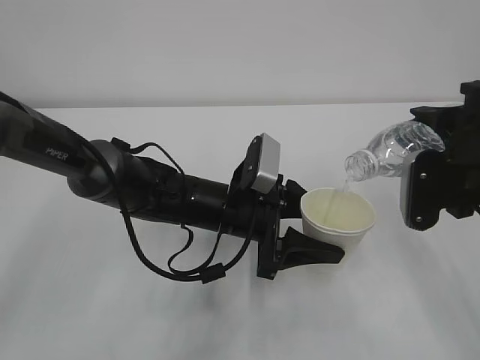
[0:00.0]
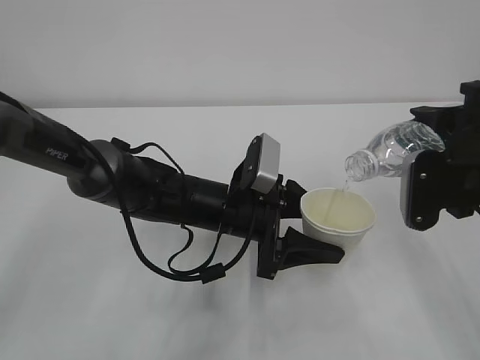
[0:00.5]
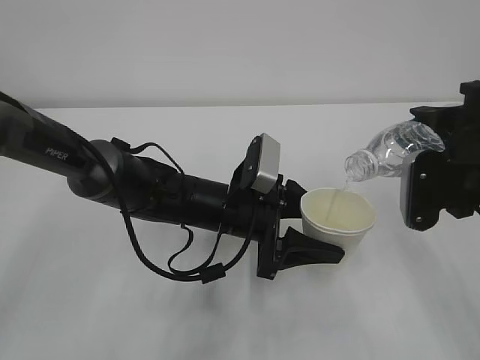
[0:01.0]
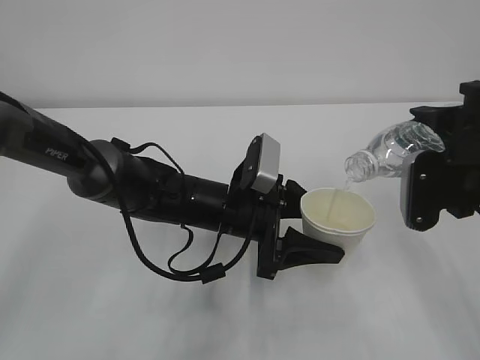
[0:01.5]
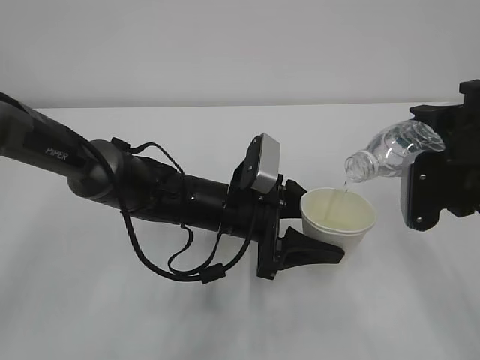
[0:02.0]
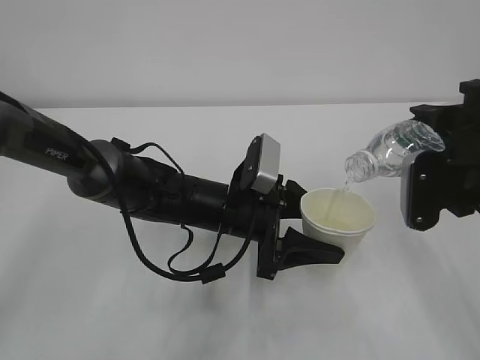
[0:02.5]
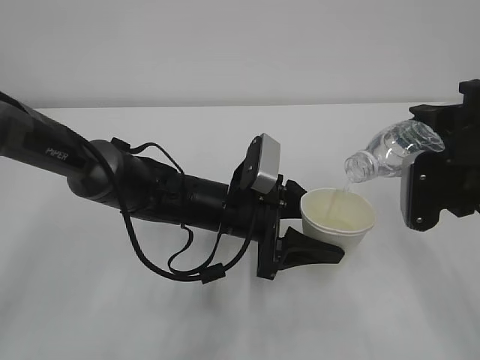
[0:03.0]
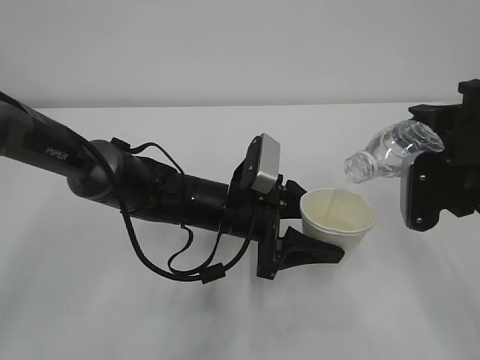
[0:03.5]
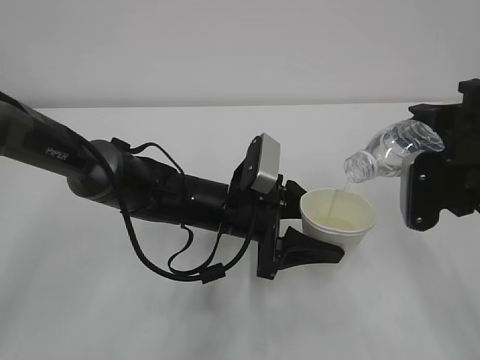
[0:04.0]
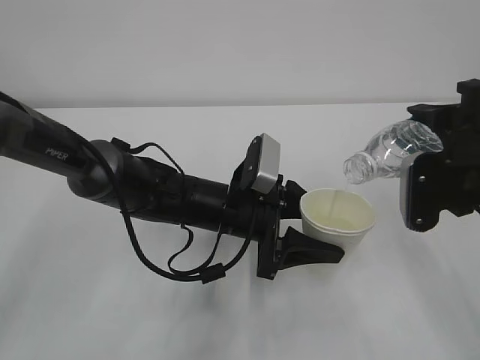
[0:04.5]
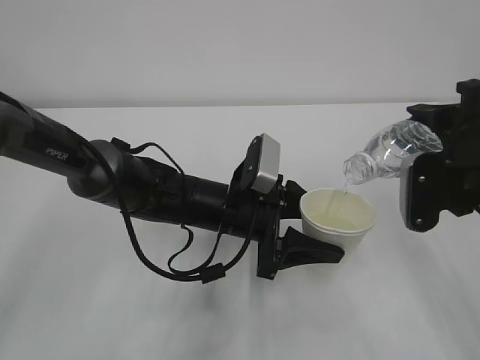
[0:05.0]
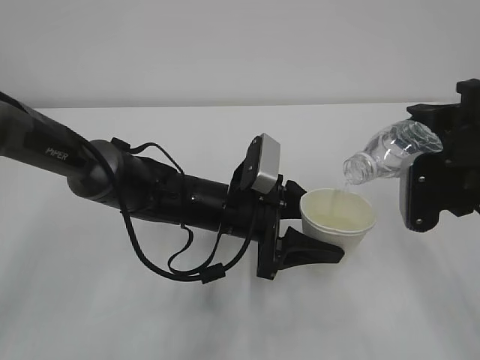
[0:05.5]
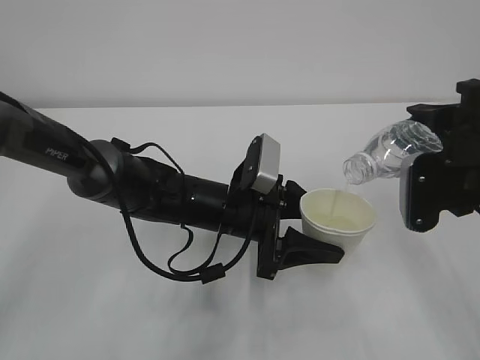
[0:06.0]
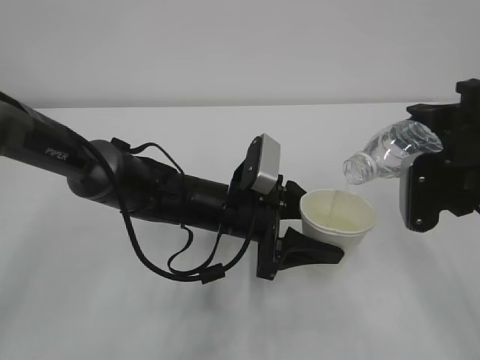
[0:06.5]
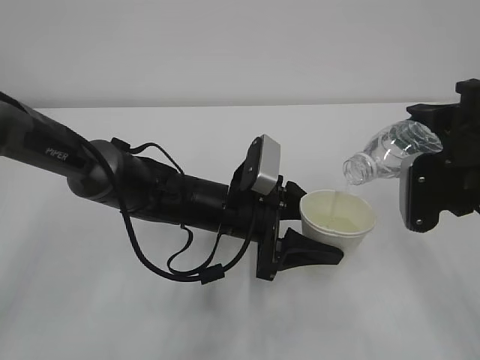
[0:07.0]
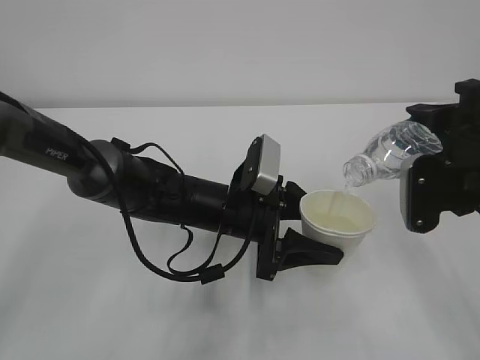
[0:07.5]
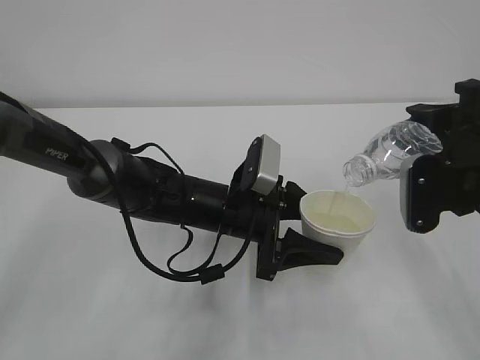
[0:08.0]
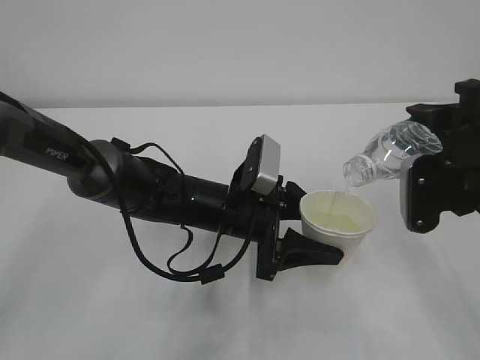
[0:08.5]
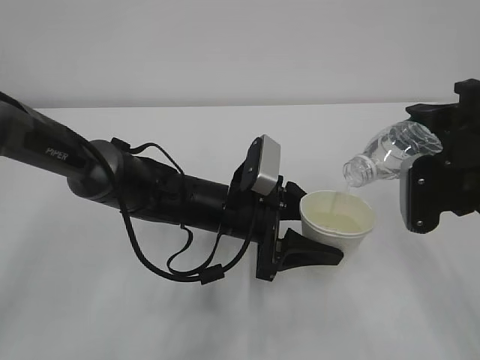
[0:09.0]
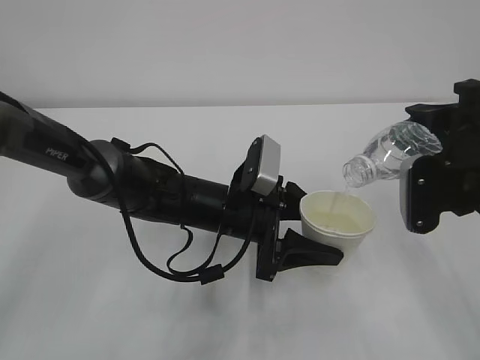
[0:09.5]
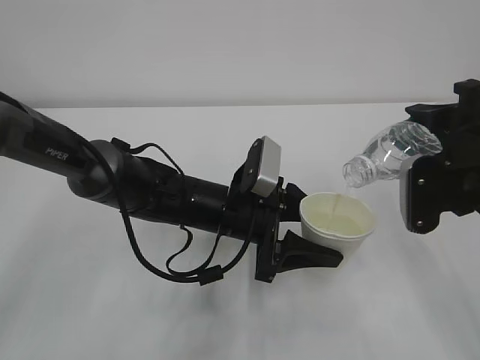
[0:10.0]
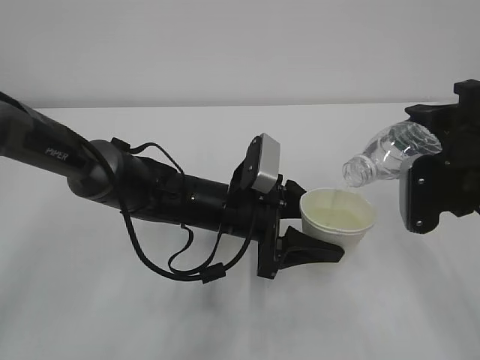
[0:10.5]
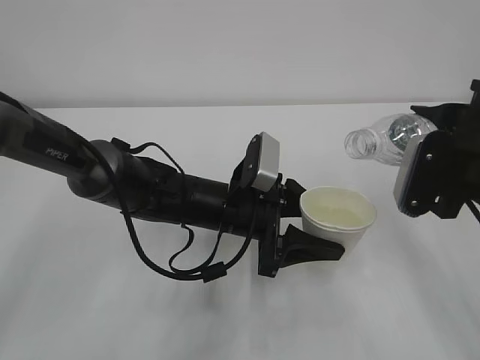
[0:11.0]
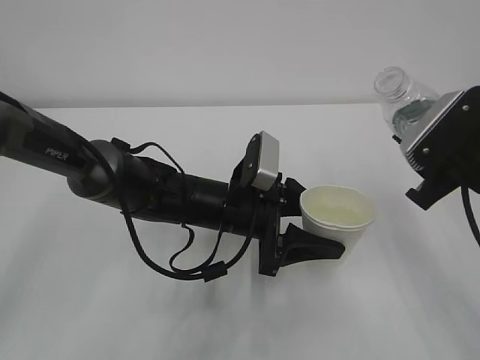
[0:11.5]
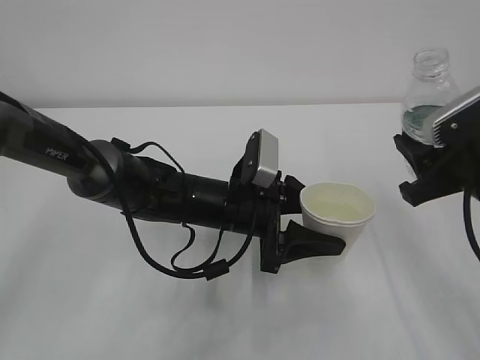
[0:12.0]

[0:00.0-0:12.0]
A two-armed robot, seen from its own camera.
0:00.0 to 0:10.0: Neither gripper changes place.

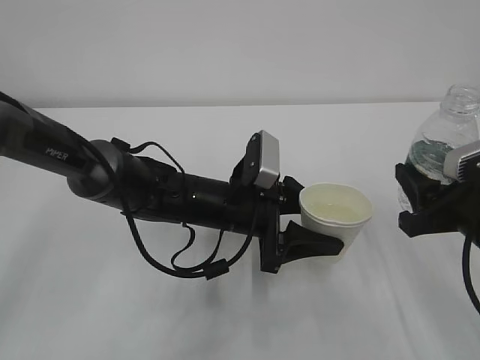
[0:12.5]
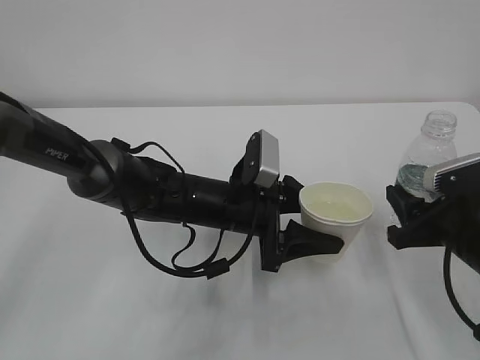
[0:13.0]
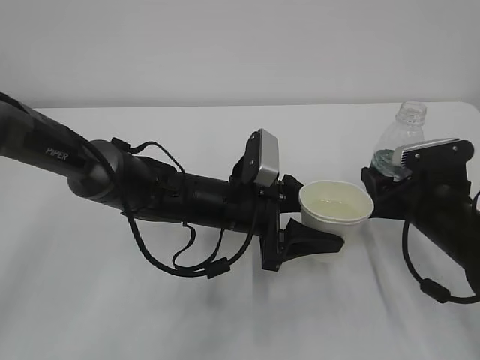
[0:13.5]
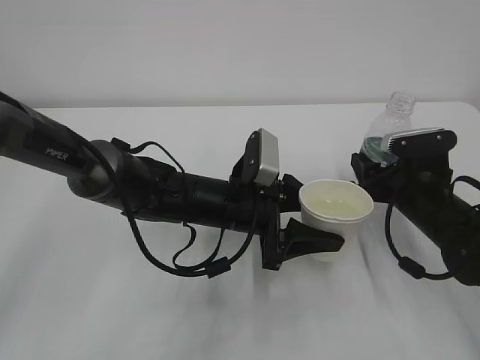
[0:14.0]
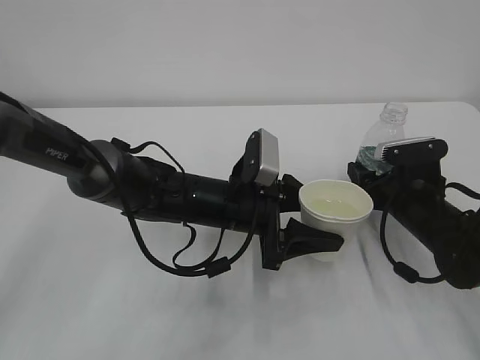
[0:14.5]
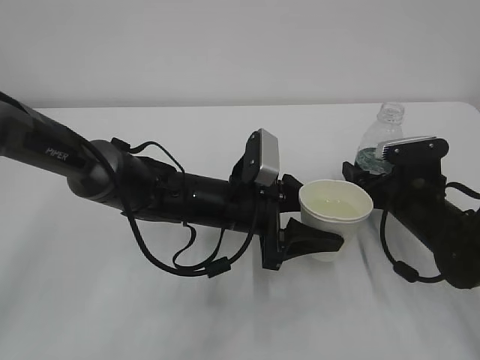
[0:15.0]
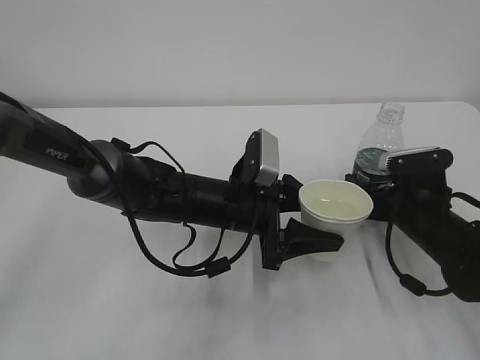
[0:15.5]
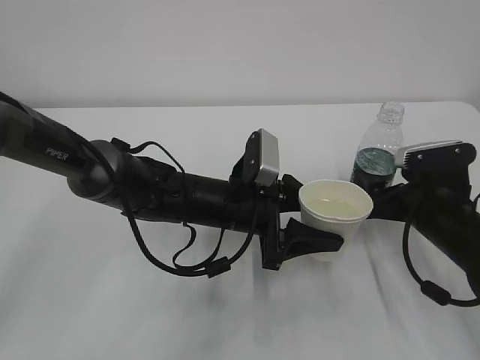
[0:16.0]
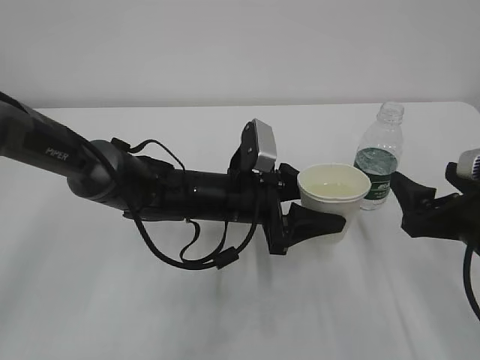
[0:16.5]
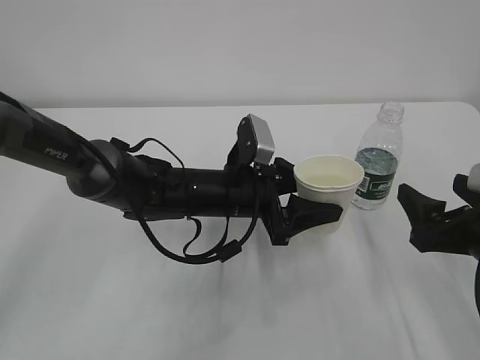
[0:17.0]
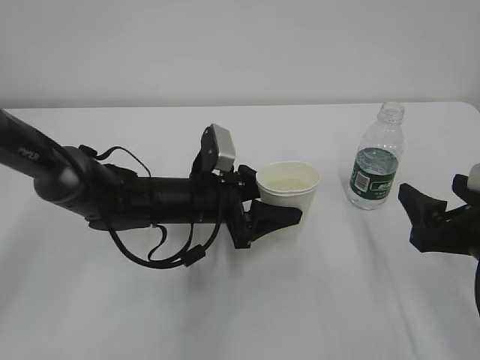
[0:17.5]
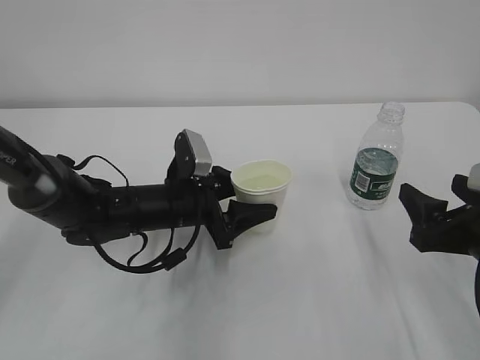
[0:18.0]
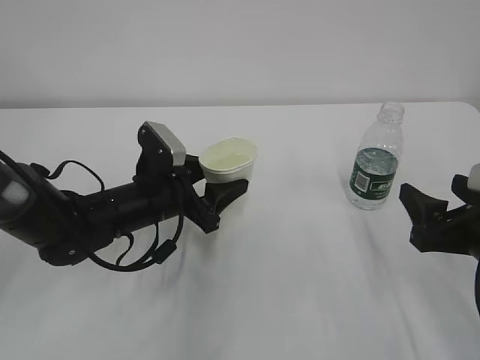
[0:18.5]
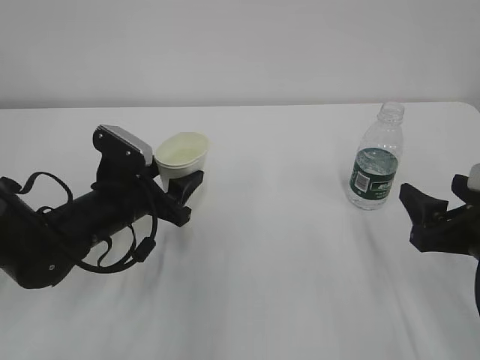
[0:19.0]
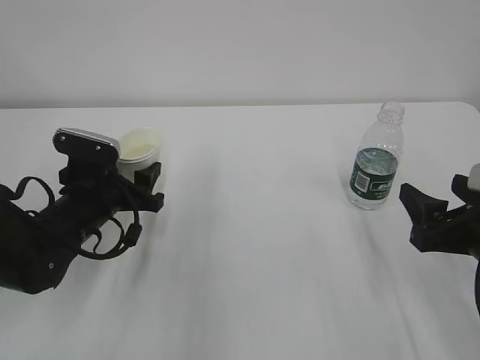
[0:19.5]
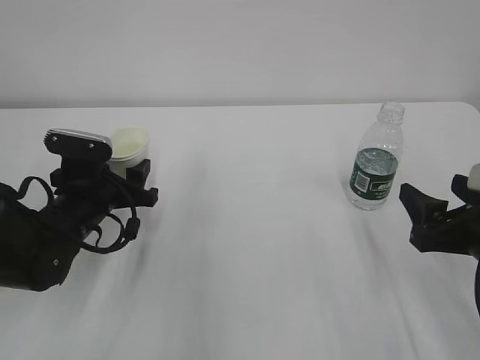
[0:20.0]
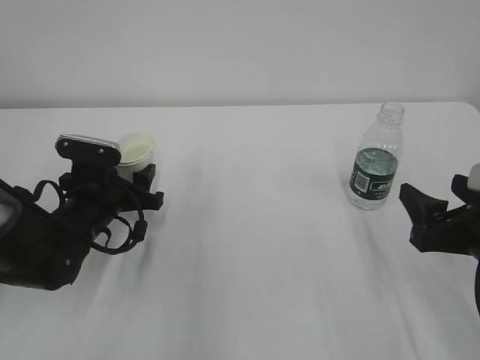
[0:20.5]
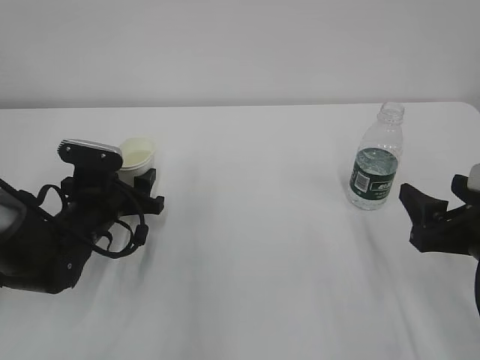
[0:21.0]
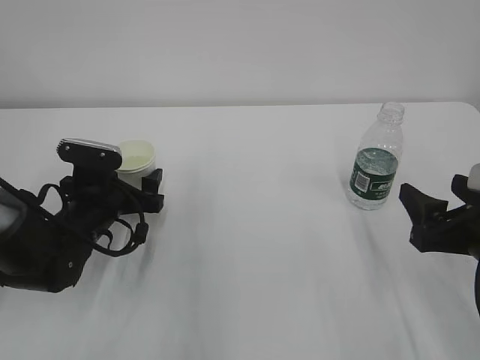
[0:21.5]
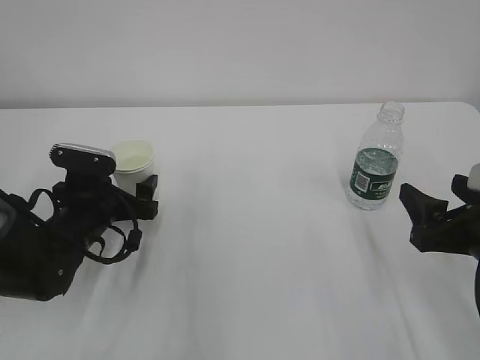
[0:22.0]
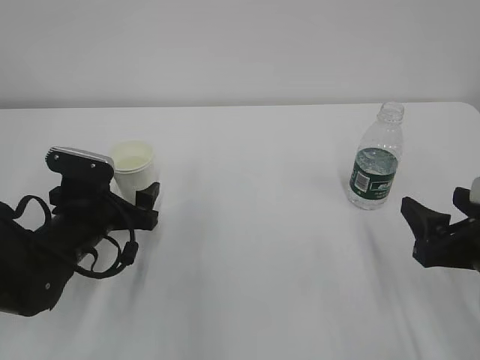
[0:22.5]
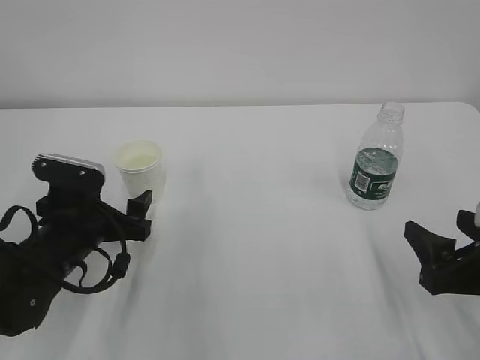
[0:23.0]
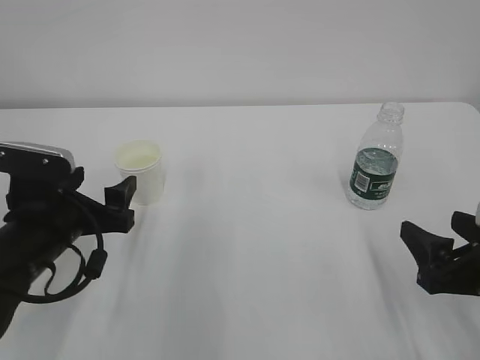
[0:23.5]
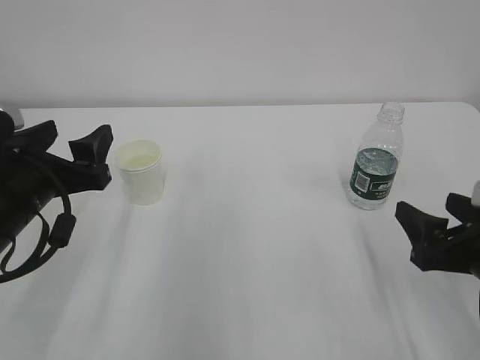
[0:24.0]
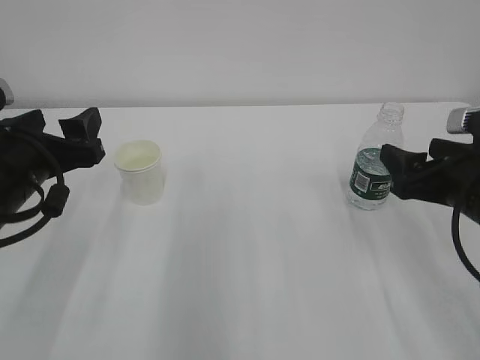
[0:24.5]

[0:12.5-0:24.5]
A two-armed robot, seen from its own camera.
0:12.5 to 0:14.5: The right gripper moves forward and downward, roughly 15 cm.
0:14.5 to 0:16.5: The right gripper goes approximately 15 cm backward and upward, and opens its fingers.
0:16.5 to 0:18.5: The left gripper shifts approximately 10 cm to the left.
0:18.5 to 0:20.5: The left gripper shifts roughly 5 cm to the left.
0:20.5 to 0:22.5: The left gripper opens.
0:22.5 to 0:24.5: The left gripper travels upward and backward by approximately 15 cm; the right gripper is displaced forward by approximately 5 cm.

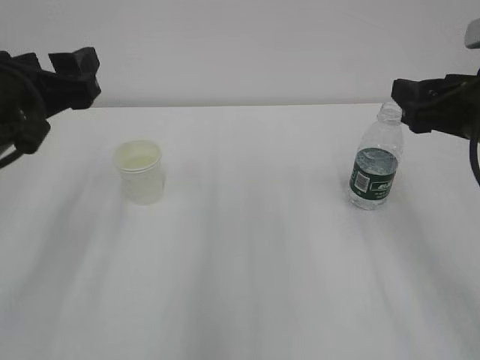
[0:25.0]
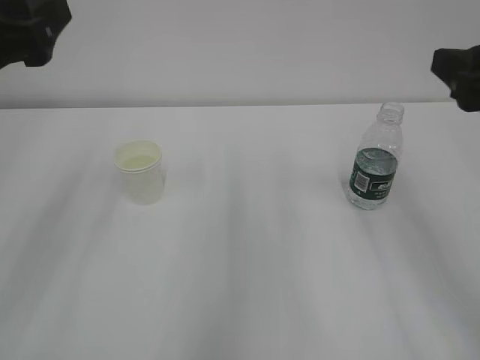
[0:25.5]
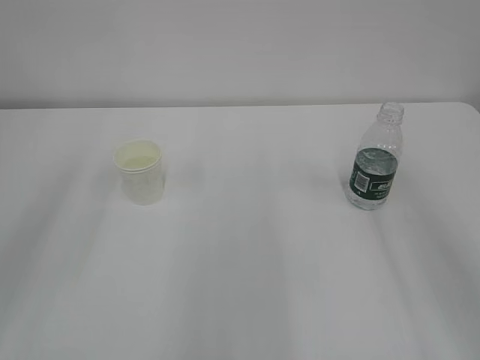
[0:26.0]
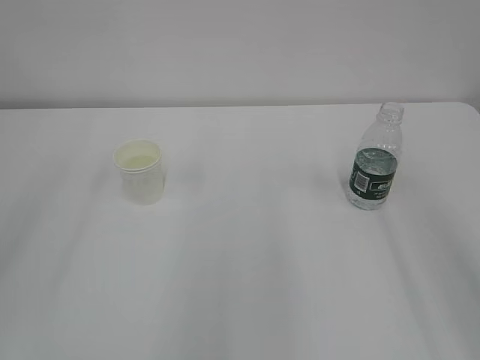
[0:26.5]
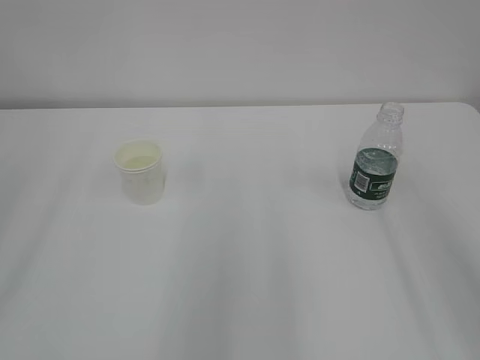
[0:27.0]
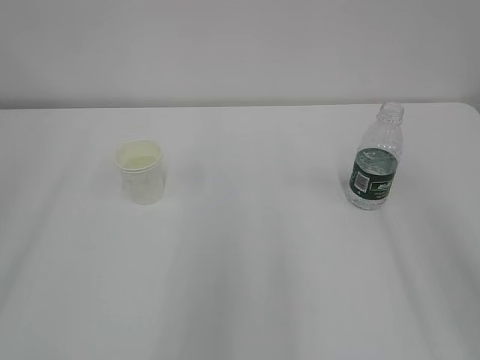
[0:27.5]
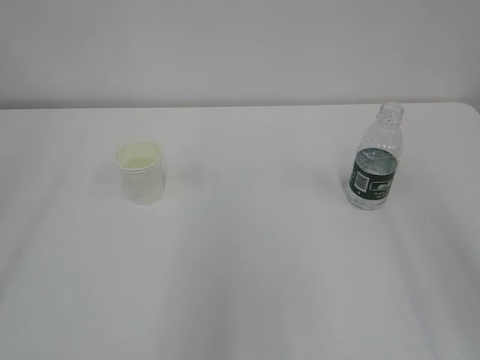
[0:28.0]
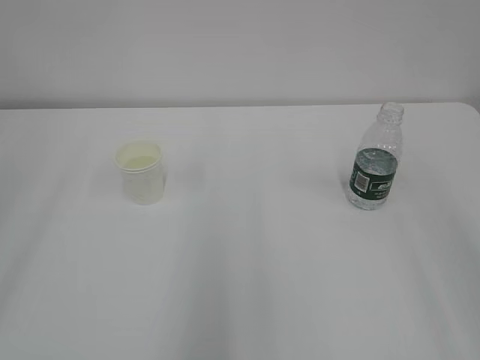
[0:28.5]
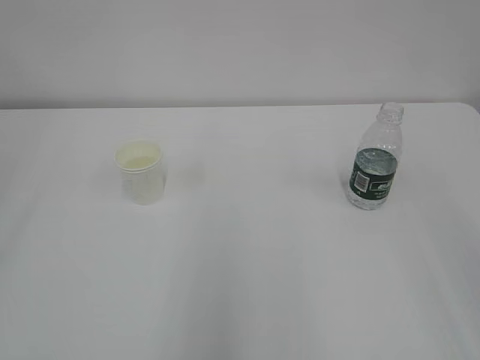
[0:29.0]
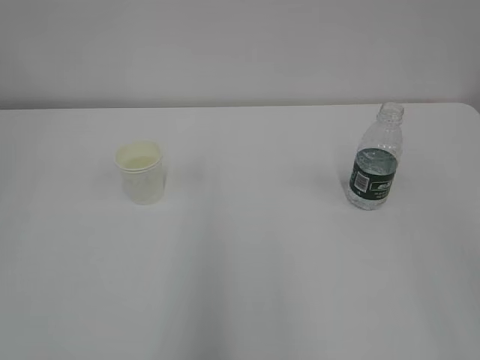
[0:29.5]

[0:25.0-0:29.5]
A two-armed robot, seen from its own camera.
0:25.0 to 0:27.0: The left gripper is displaced backward, upward and to the left by about 20 cm; the right gripper is displaced backward and upward by about 20 cm.
